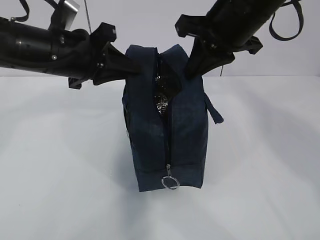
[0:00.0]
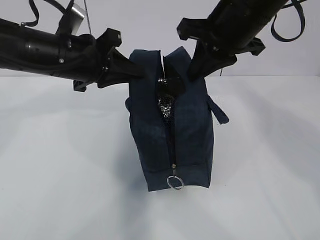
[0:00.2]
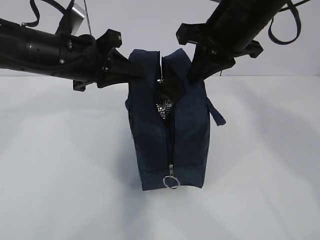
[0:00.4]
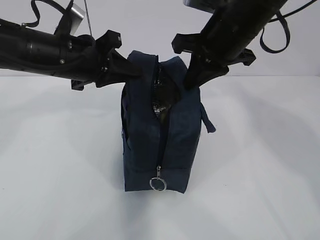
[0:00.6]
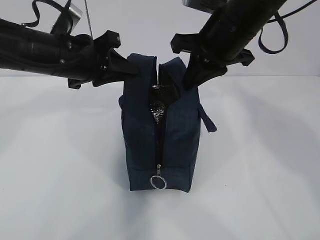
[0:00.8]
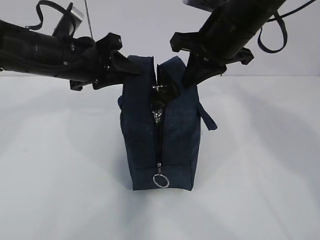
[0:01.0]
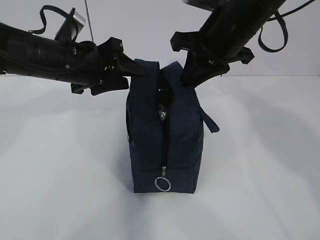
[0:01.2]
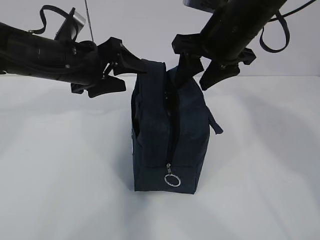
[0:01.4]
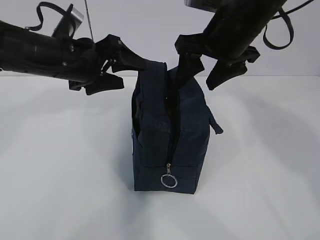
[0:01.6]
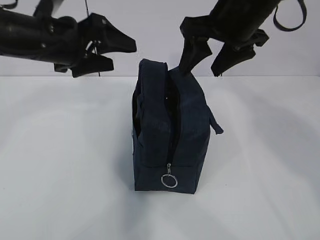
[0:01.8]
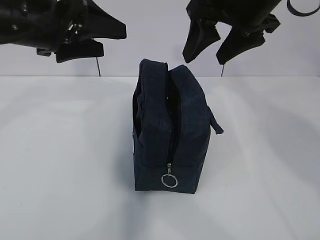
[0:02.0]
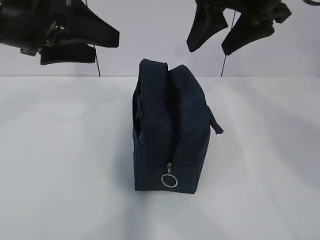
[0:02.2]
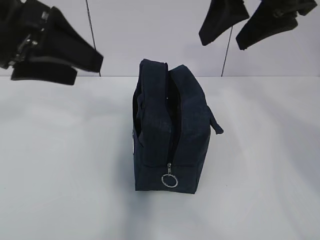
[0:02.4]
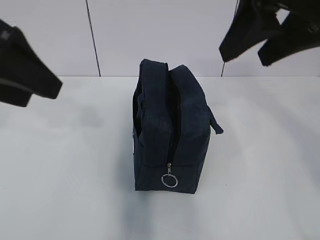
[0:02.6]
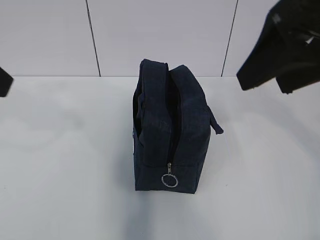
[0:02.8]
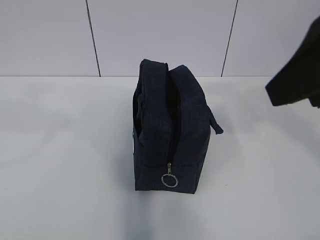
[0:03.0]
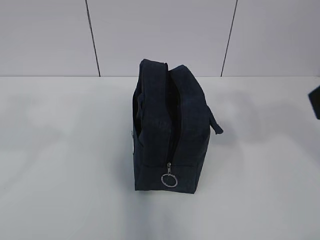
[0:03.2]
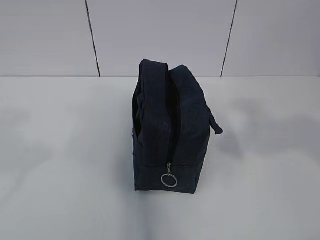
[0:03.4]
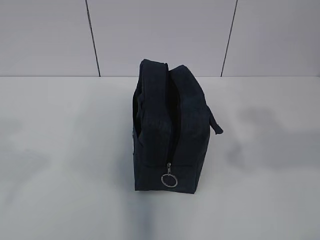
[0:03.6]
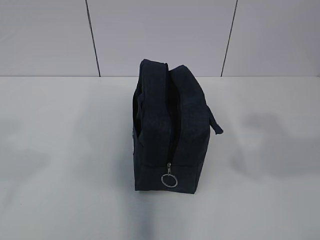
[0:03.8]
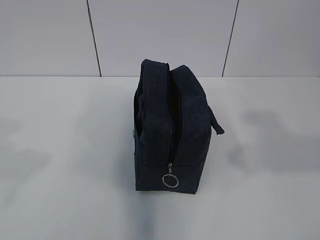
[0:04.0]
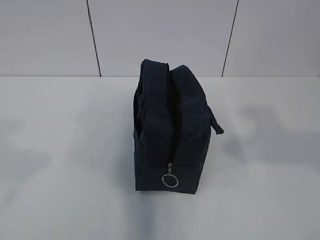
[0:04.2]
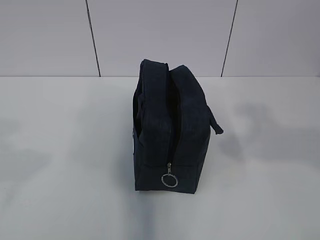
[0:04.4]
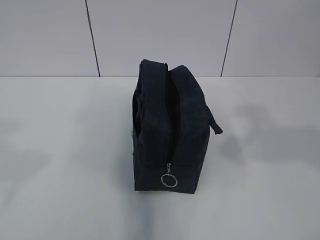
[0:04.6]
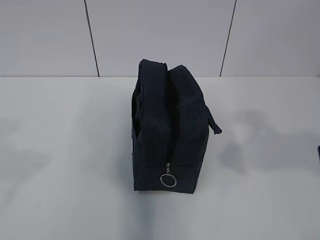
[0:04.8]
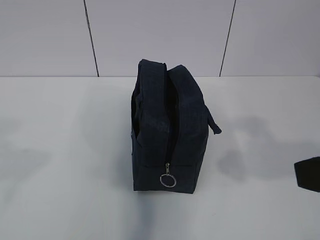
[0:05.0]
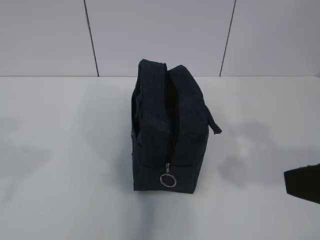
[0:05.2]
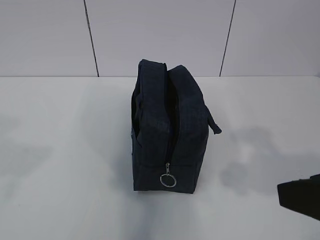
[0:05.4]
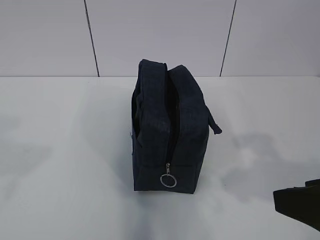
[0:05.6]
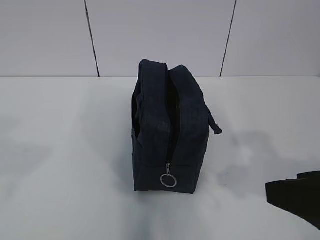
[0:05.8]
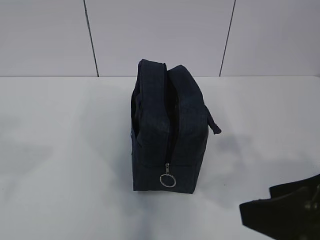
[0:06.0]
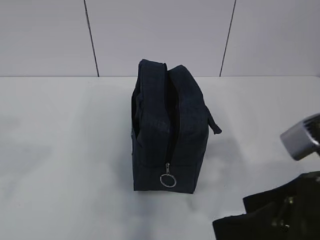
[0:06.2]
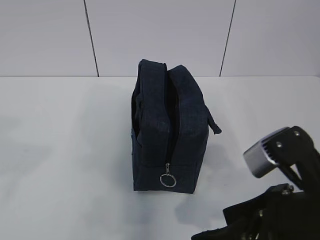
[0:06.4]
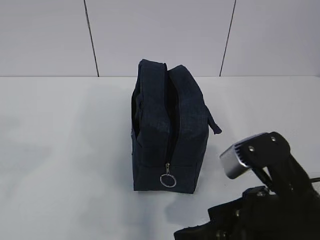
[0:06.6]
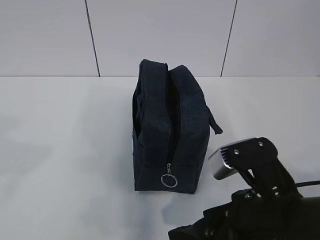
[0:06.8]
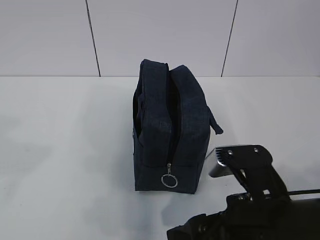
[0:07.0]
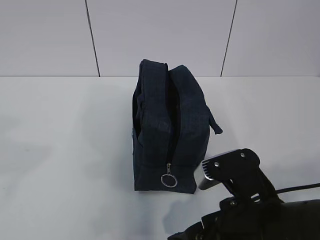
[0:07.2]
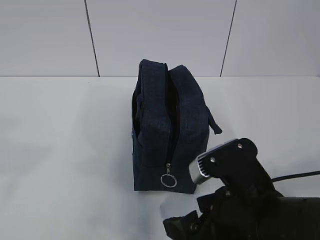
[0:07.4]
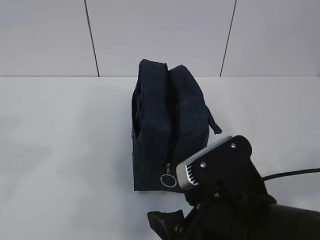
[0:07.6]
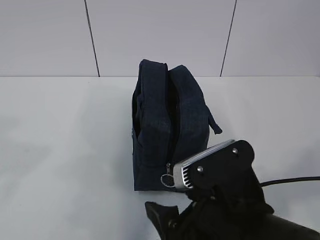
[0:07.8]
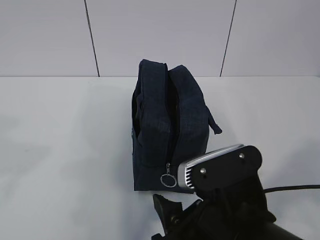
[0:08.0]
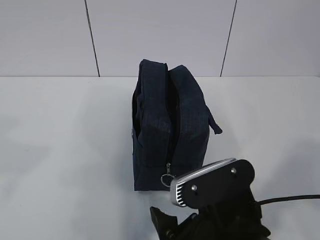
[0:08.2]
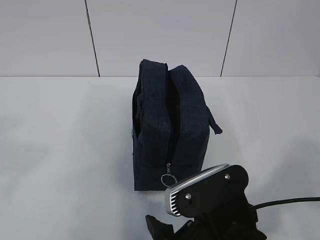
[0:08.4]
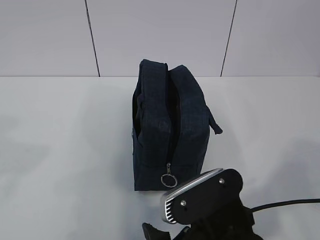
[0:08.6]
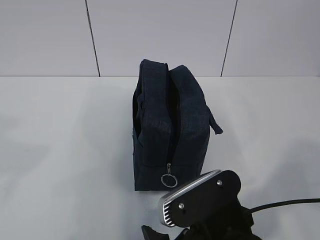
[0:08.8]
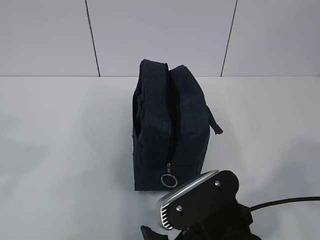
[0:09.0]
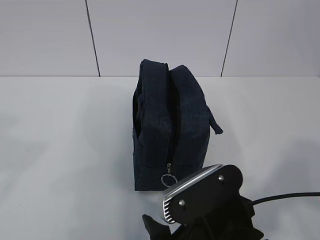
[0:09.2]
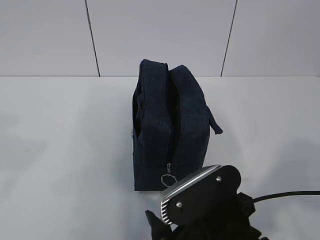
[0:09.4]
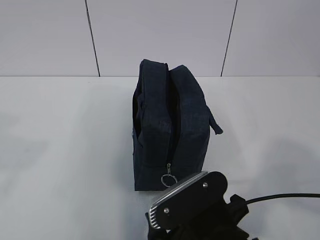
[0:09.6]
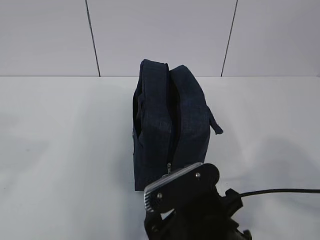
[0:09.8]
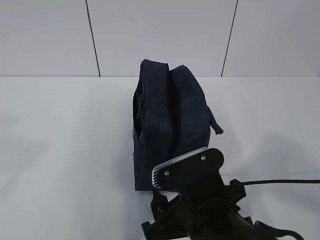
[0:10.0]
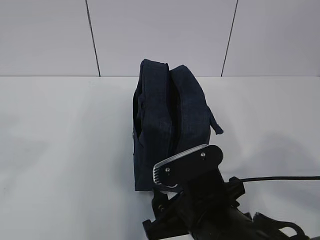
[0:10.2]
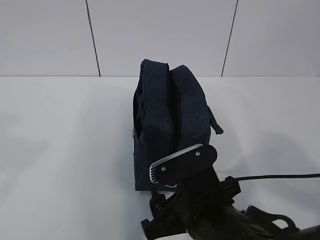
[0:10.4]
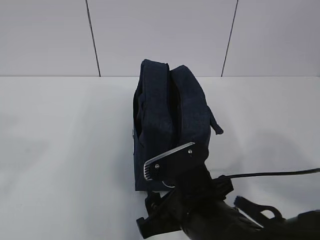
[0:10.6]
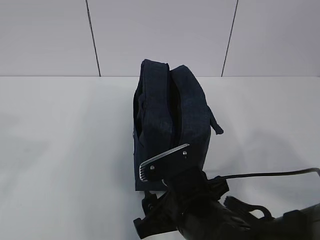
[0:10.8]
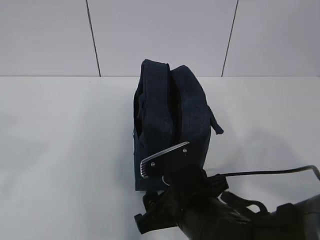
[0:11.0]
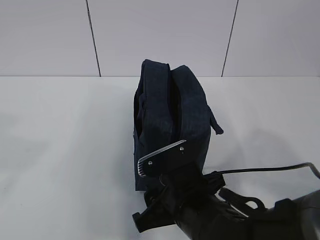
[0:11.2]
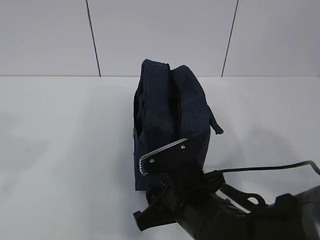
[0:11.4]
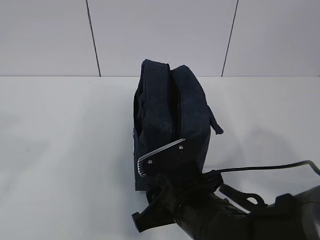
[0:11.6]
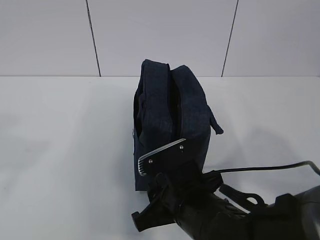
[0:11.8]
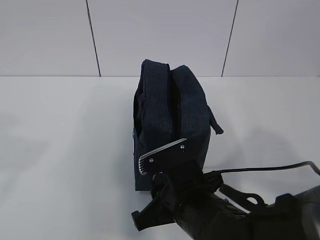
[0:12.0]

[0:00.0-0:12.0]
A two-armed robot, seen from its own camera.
0:00.0 to 0:01.6: The left gripper opens up; the right gripper opens up.
0:01.6 to 0:03.0: The left gripper shifts roughly 30 cm backward, upward and to the left, while the right gripper goes roughly 20 cm backward and upward.
0:03.0 to 0:04.4: The right gripper shifts about 10 cm backward.
0:04.4 to 0:06.0: The right gripper moves downward, some 15 cm.
0:06.0 to 0:07.6: The right gripper heads to the left and downward, covering about 15 cm.
0:07.6 to 0:09.0: The grippers stay close to where they were, moving slightly.
0:09.0 to 0:10.4: The right gripper shifts roughly 5 cm forward.
0:10.4 to 0:12.0: The right gripper closes up.

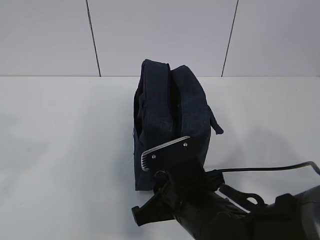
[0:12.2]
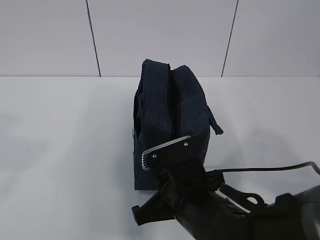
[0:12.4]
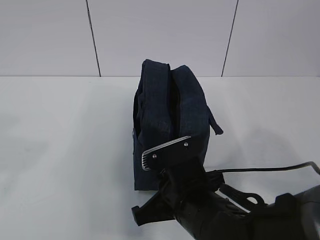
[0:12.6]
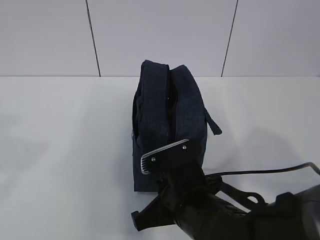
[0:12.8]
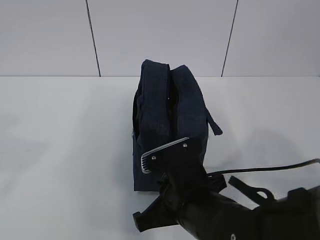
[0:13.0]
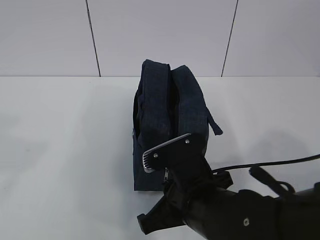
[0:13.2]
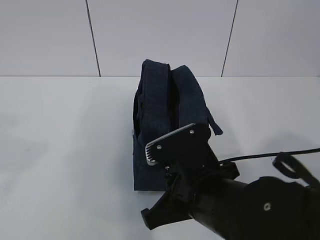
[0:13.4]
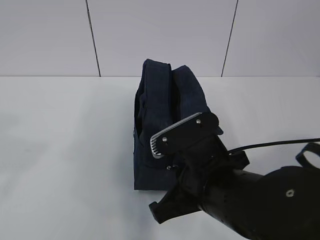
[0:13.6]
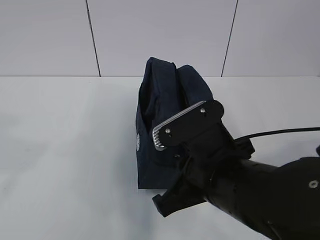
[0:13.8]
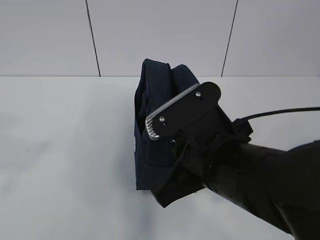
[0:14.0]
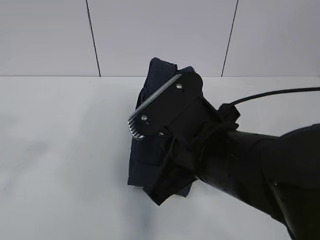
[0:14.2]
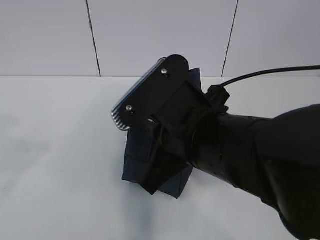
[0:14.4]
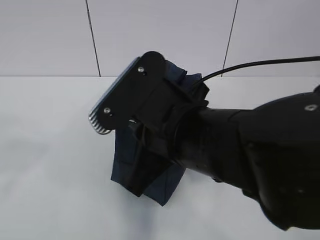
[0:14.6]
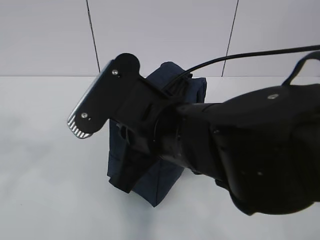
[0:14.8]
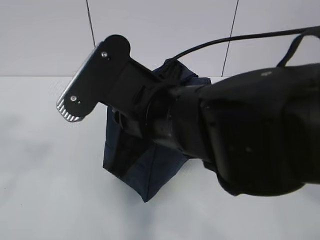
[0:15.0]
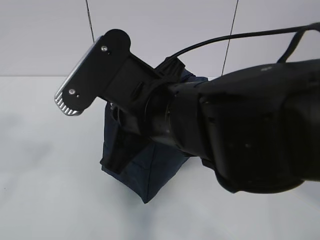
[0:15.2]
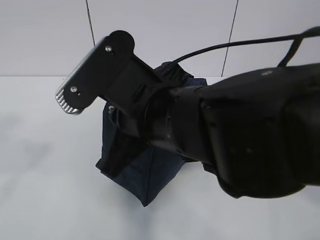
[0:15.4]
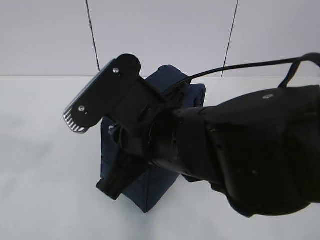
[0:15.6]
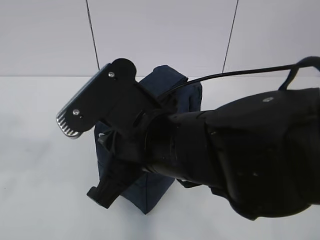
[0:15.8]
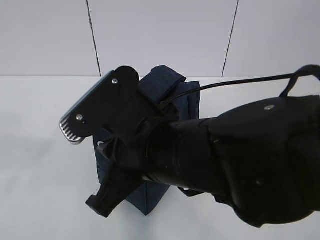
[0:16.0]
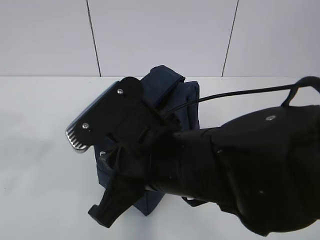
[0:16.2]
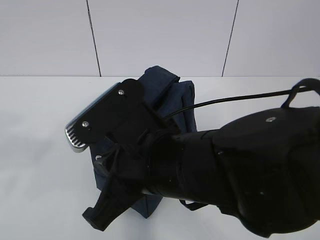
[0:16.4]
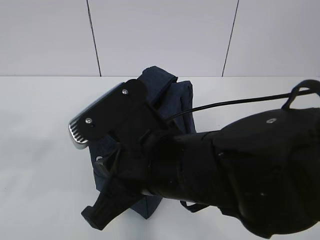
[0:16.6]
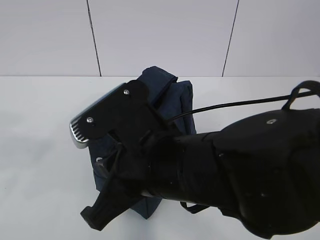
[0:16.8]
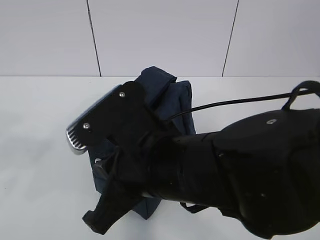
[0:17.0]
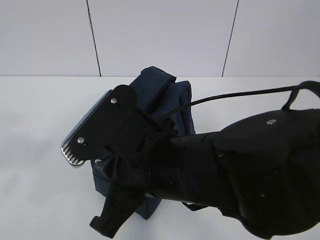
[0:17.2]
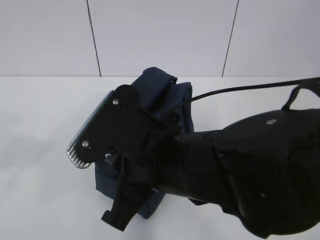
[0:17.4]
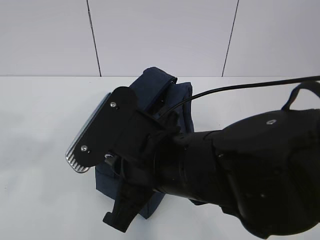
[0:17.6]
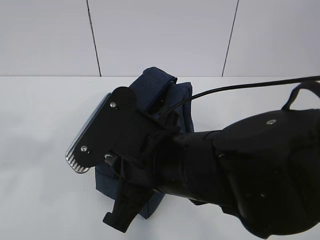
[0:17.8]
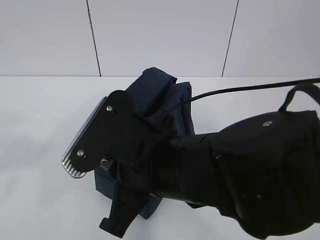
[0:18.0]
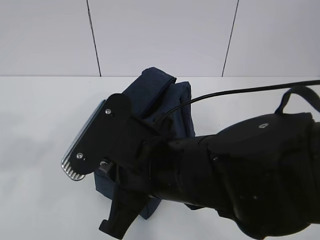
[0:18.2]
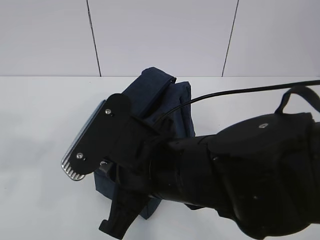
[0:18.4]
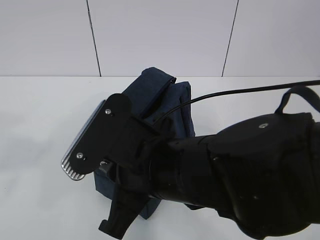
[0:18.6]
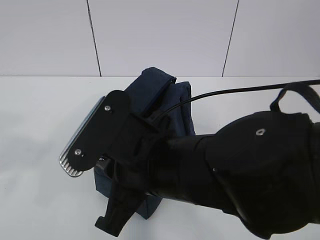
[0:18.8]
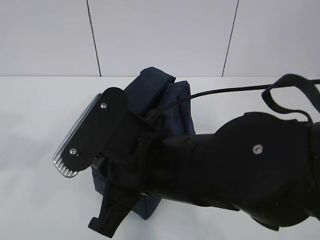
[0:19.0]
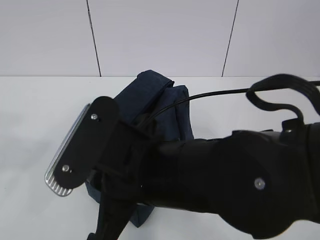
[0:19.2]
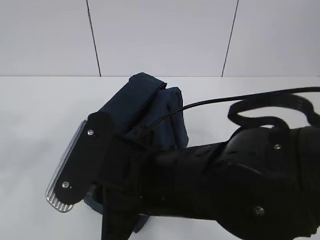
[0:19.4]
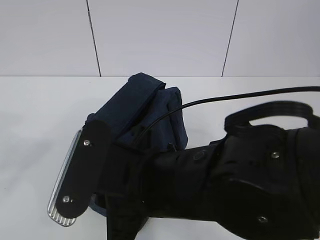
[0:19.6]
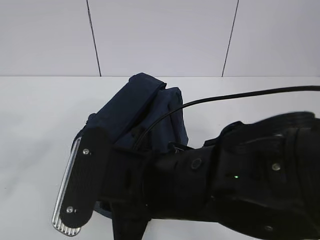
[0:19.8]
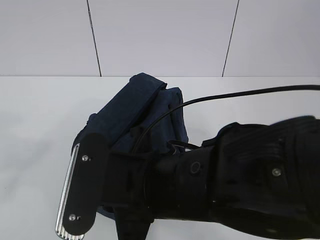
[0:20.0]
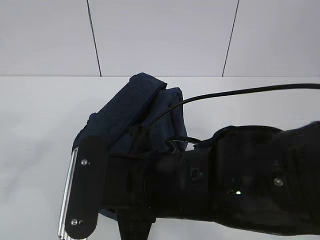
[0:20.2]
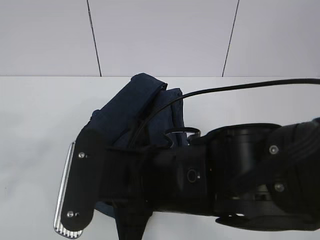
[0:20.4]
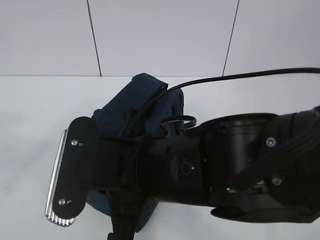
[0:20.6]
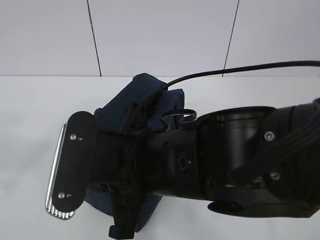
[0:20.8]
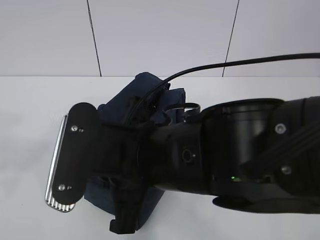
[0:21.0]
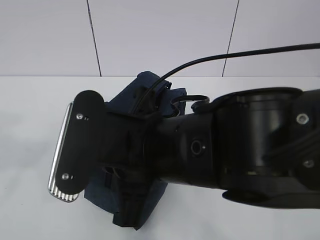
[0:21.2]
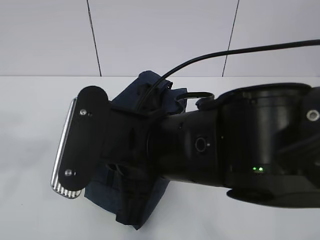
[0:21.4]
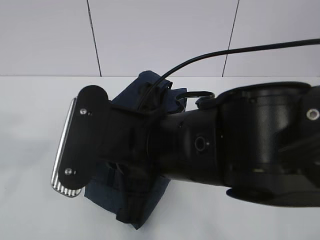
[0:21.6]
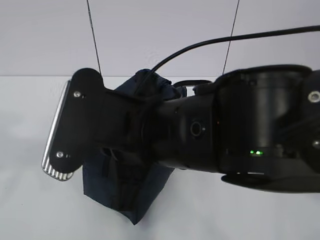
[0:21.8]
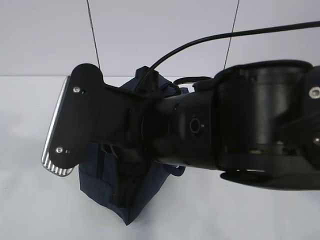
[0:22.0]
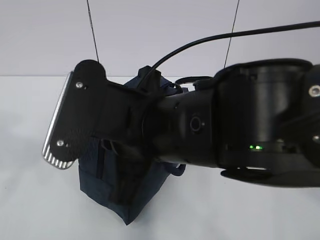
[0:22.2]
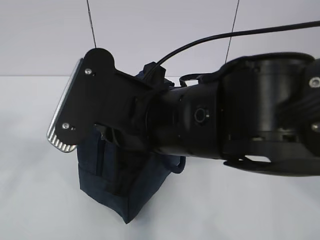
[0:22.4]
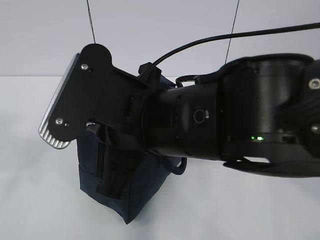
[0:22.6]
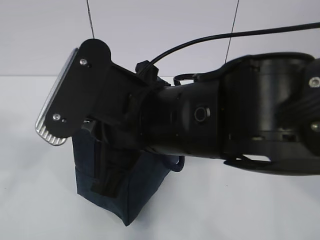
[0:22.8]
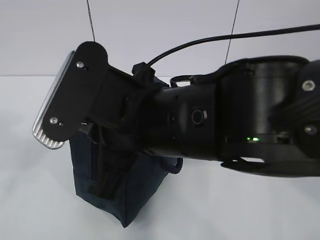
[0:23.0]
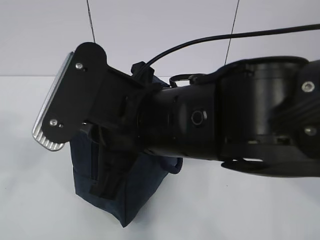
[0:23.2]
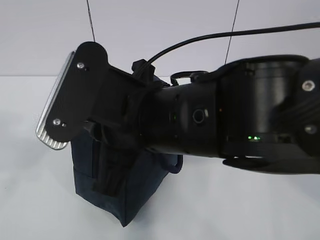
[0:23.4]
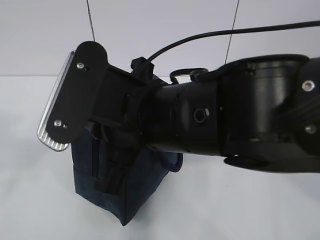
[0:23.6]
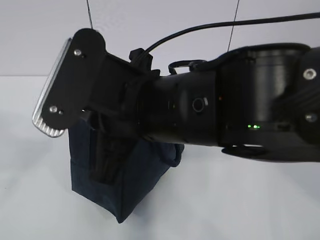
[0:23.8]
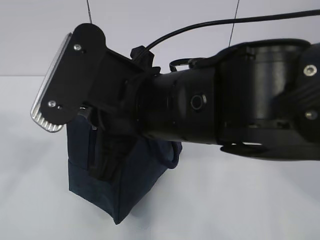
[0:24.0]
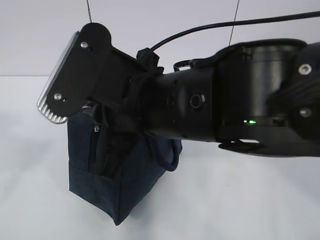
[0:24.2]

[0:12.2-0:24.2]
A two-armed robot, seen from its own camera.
0:12.2 to 0:13.8: The right gripper moves upward, about 10 cm, and closes up.
0:13.8 to 0:15.2: The right gripper moves upward and to the left, roughly 10 cm.
0:16.6 to 0:18.2: The grippers make only small movements.
0:18.2 to 0:19.8: There are only small adjustments of the grippers.
